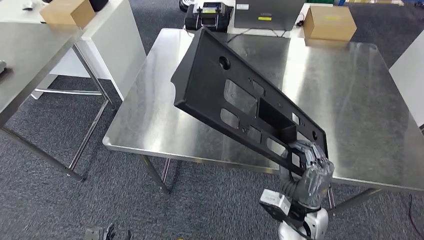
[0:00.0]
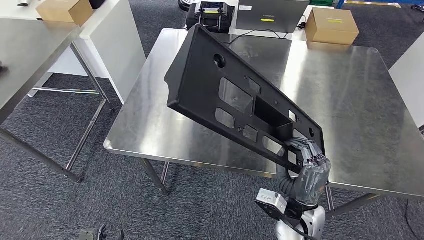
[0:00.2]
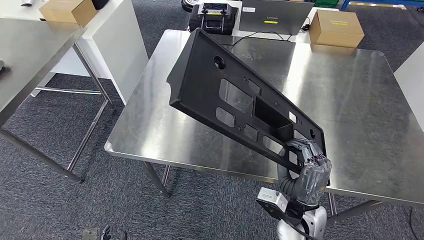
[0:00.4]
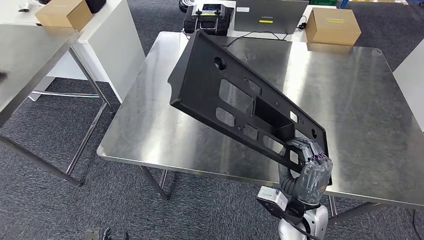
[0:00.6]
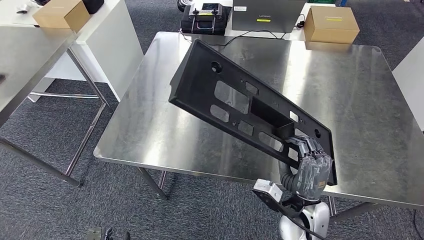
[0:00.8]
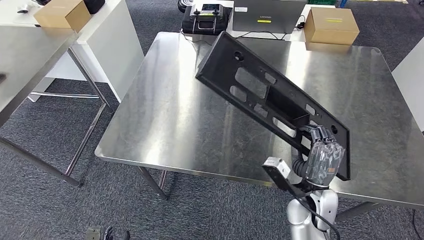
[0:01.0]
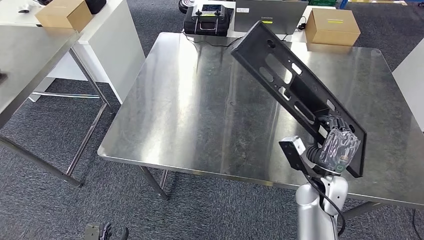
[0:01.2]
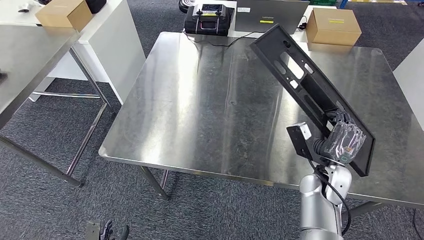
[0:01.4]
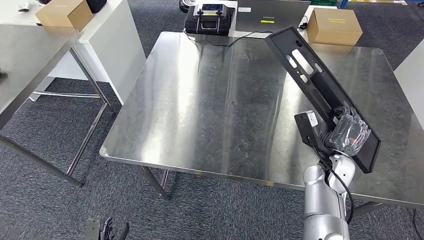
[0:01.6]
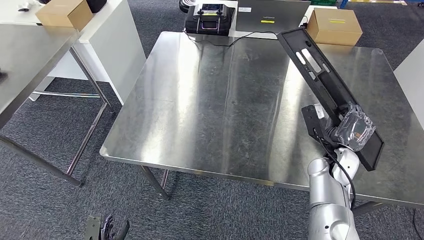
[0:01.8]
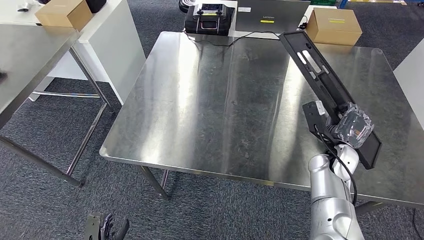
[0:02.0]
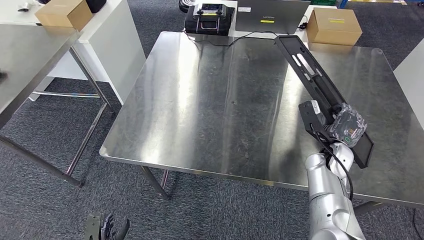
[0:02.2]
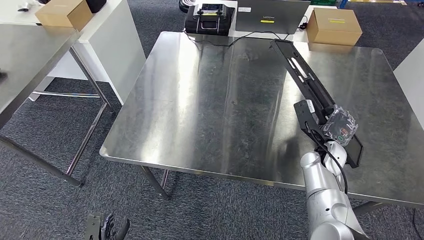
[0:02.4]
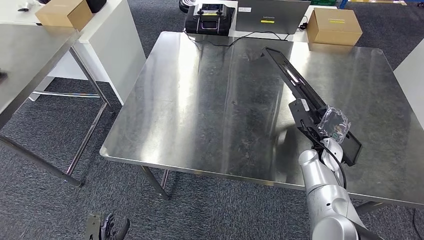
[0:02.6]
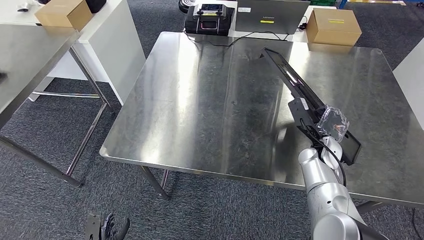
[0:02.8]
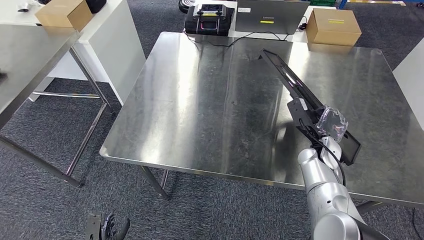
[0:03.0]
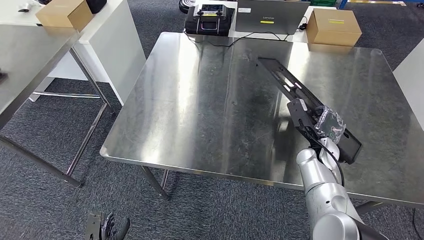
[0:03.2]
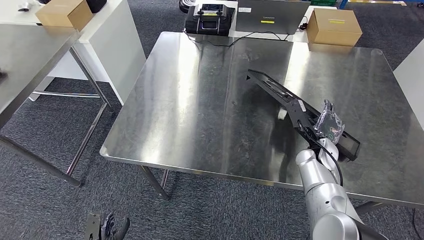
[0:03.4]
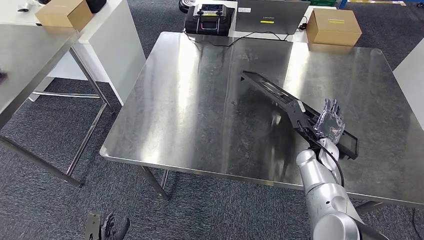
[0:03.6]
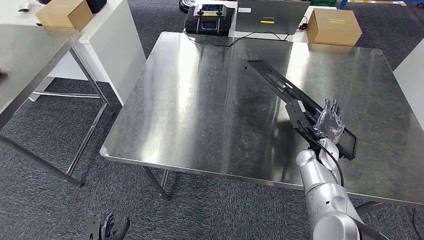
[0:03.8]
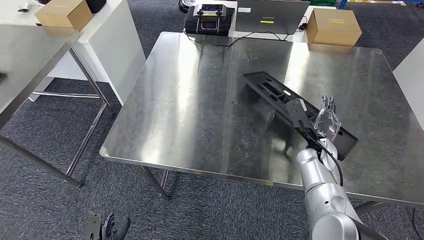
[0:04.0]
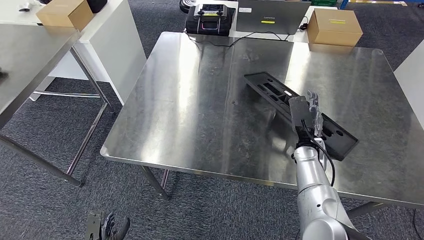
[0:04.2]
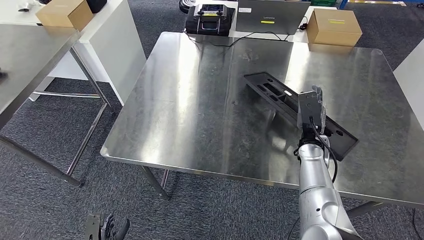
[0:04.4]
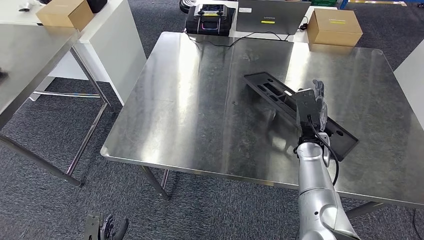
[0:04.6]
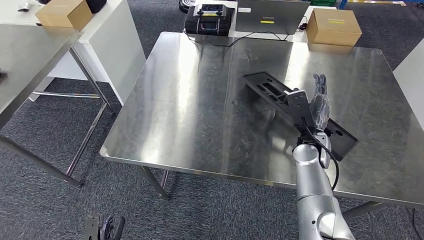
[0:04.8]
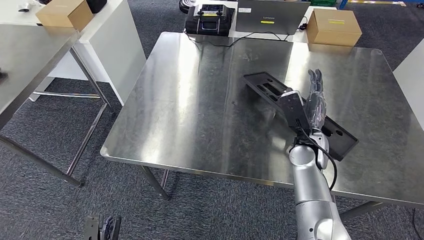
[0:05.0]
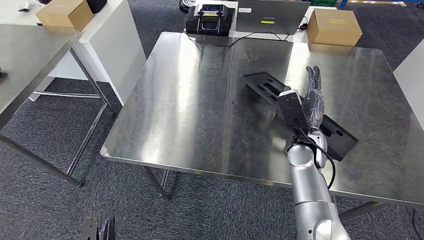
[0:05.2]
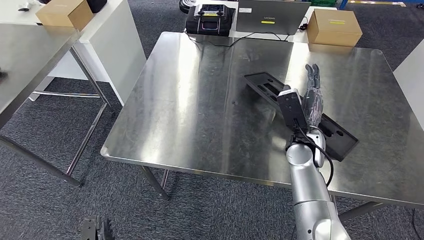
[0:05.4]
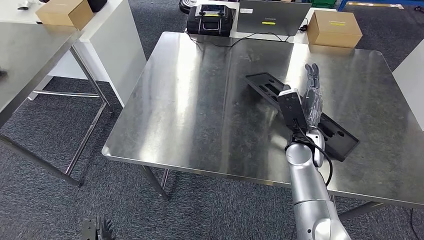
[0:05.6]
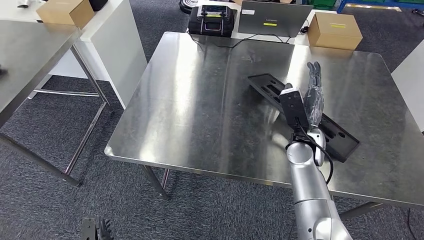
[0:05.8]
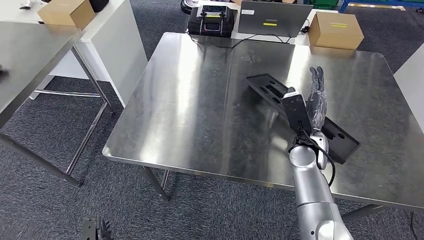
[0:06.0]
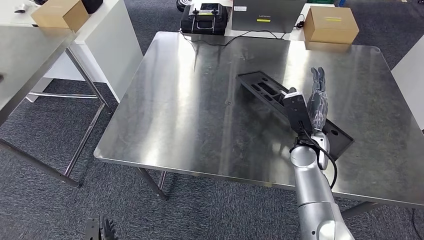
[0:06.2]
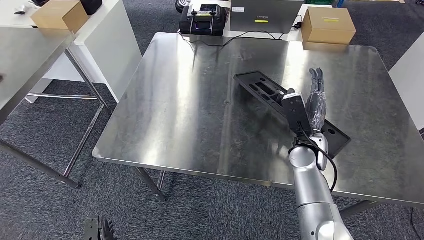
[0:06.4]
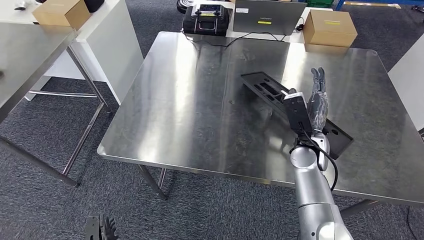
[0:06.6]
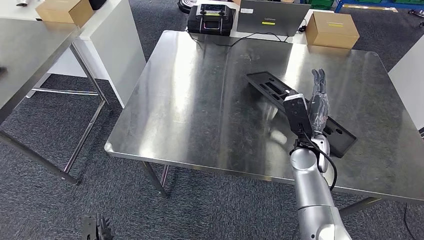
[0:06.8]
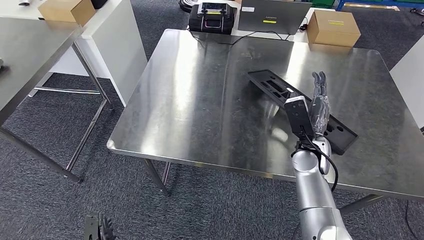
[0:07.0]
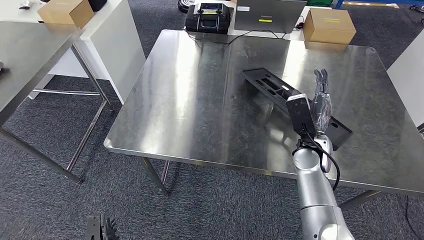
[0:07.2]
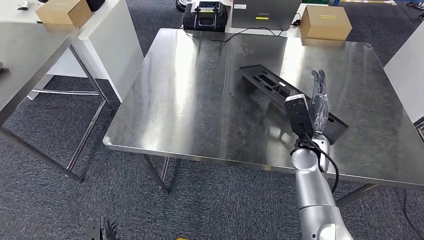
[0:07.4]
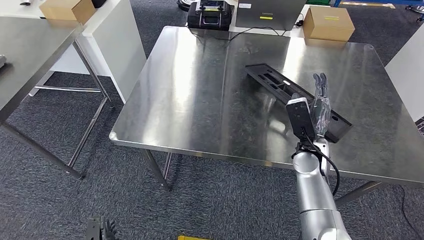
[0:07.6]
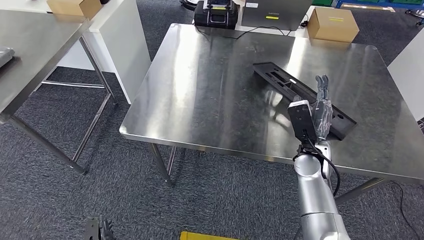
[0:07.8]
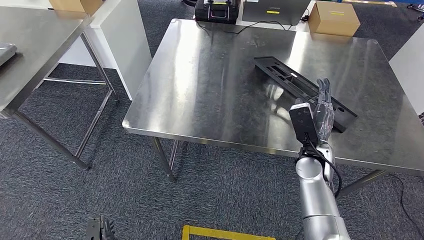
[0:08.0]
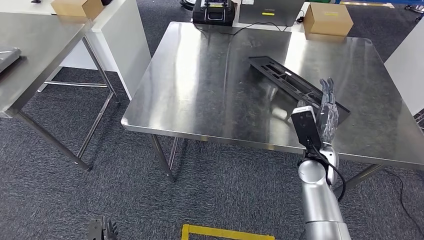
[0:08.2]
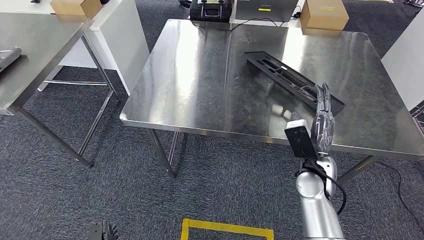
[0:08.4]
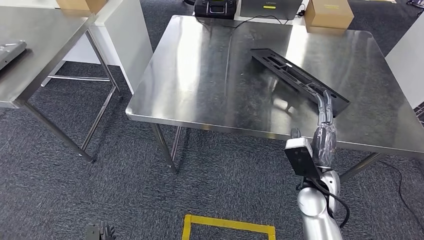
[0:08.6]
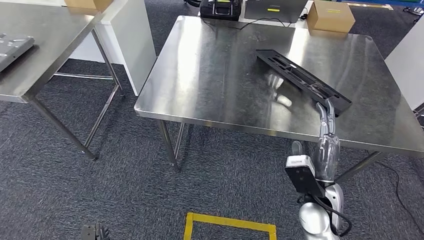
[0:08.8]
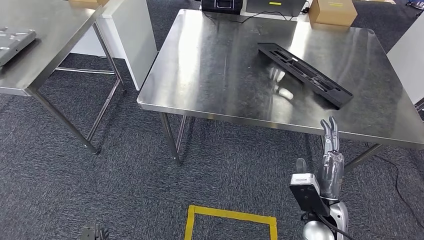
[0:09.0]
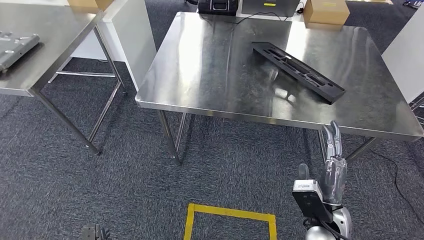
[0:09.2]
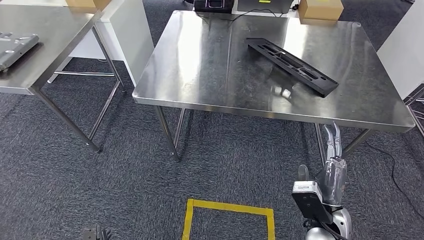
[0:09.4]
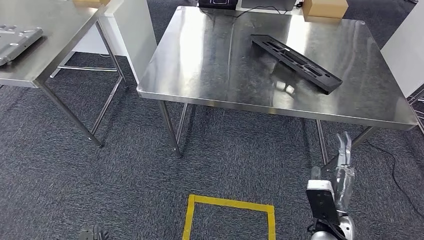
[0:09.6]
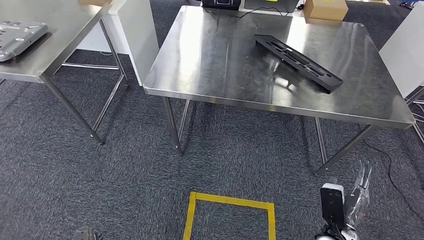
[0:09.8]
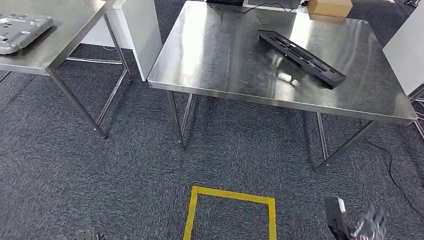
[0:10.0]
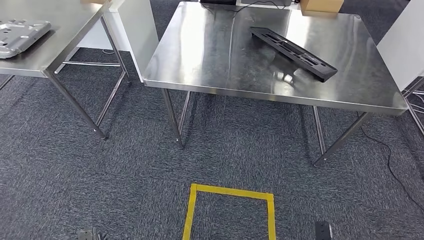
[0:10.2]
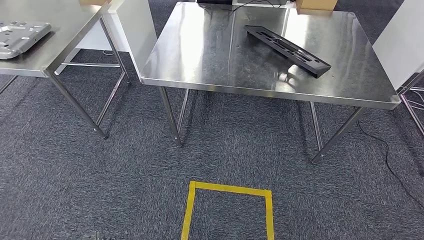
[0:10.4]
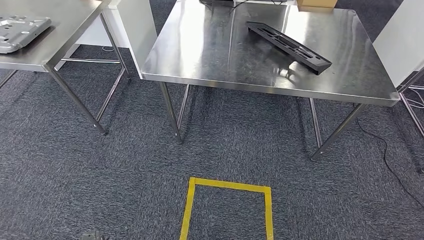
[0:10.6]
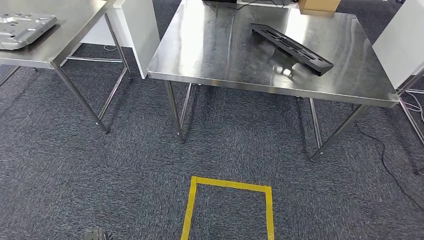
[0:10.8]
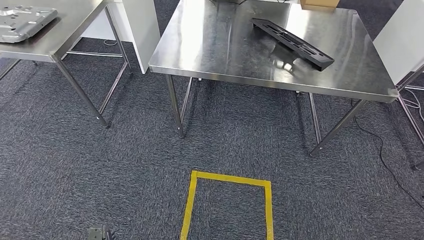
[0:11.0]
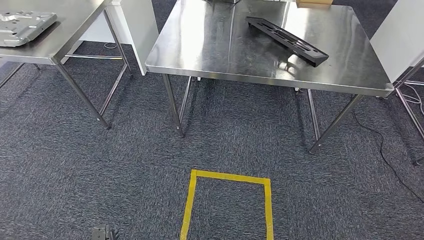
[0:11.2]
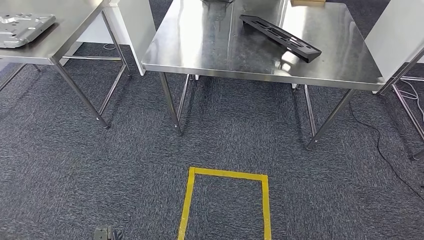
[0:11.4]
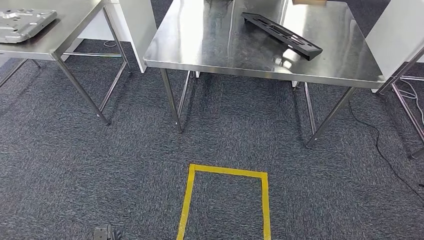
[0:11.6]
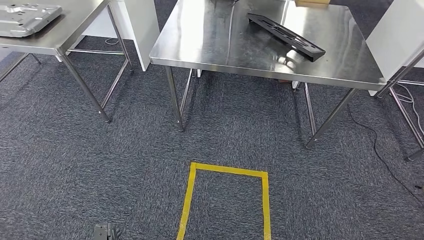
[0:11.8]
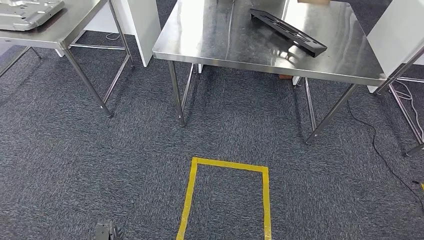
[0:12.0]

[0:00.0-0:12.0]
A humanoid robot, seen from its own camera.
Step, 0:00.0 to 0:10.8: Insert the large material into the corresponding slot on the workbench.
0:01.6 to 0:03.0: The right hand ends up approximately 5 cm from where it was.
0:04.4 to 0:06.0: The right hand shifts by some 5 cm.

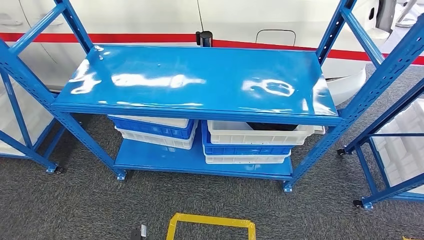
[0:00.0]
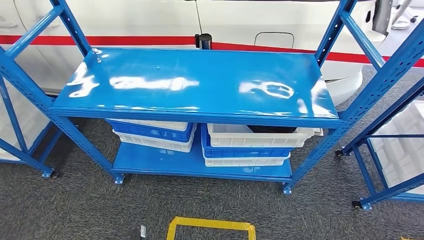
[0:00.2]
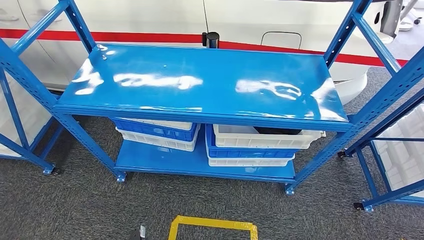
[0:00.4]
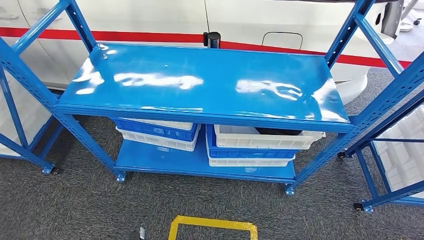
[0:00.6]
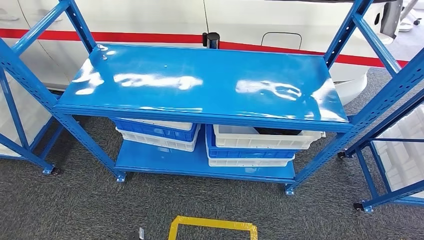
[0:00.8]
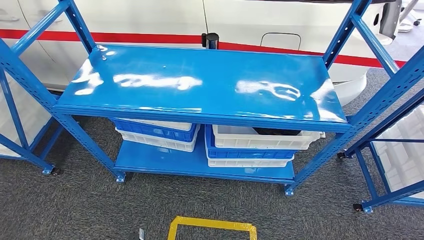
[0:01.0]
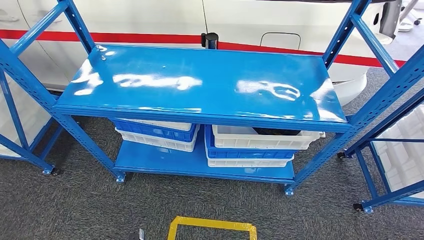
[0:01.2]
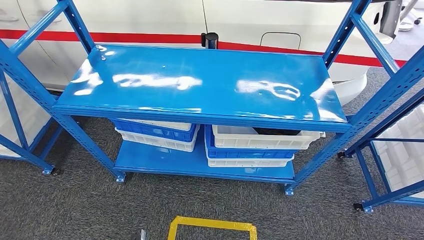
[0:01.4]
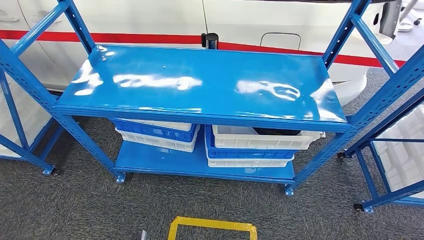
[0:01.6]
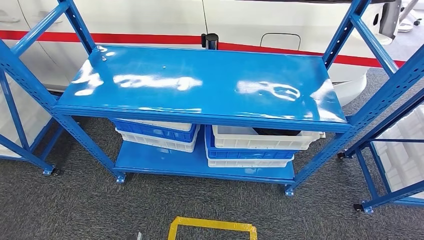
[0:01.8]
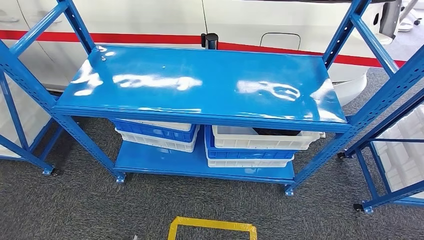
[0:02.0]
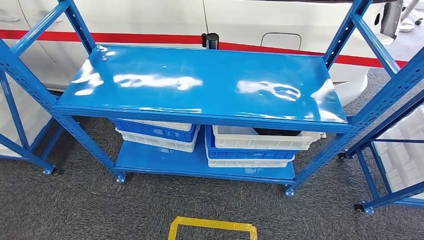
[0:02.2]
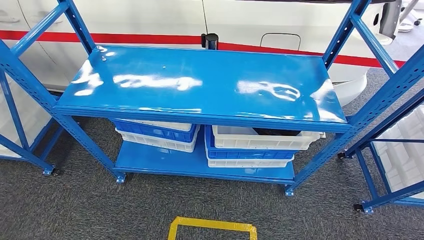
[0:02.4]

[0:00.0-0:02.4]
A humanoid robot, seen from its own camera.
Step, 0:00.0 to 0:02.4: Move to the initial position of the shelf.
0:01.2 to 0:02.4: The left hand travels to the left and backward by about 15 cm. Meanwhile the right hand changes place by approximately 5 cm.
